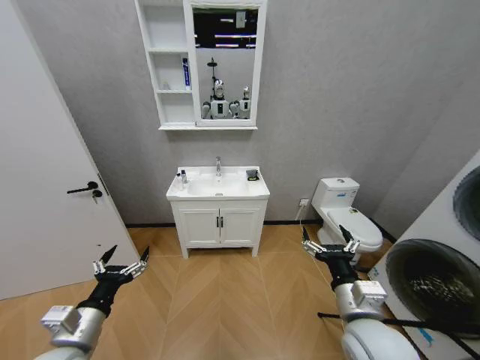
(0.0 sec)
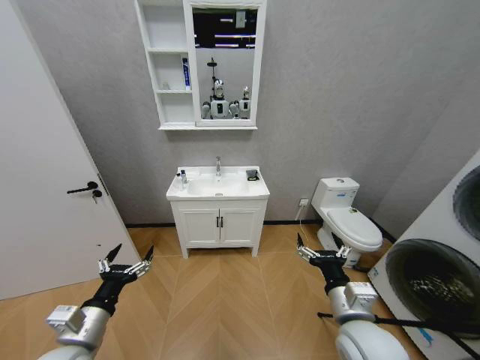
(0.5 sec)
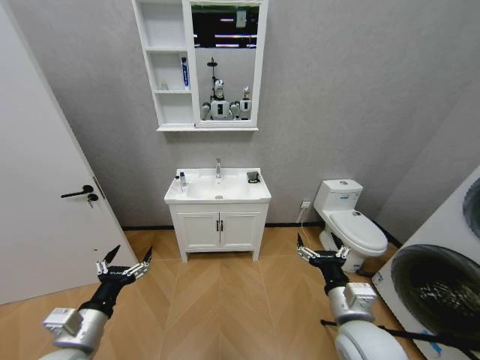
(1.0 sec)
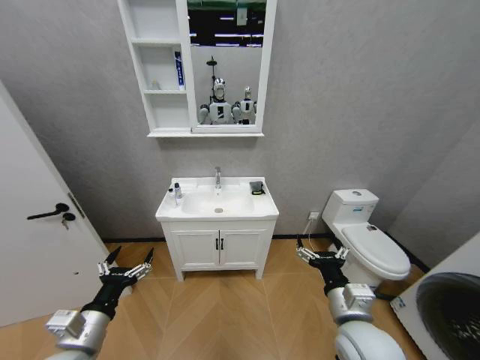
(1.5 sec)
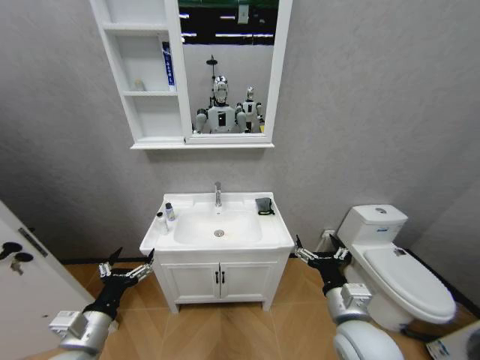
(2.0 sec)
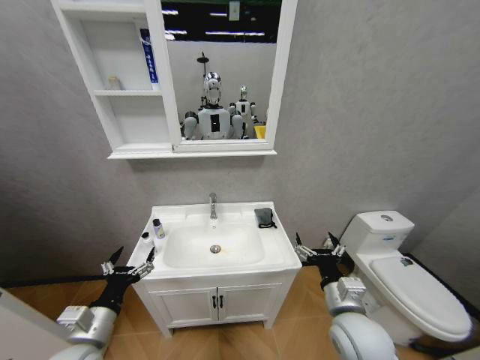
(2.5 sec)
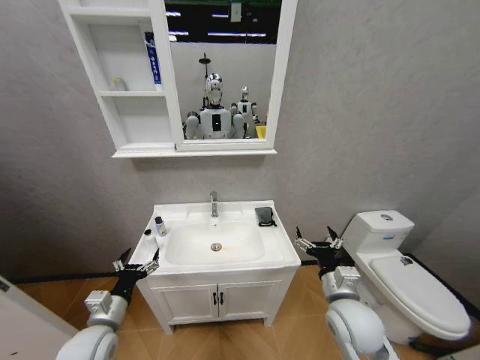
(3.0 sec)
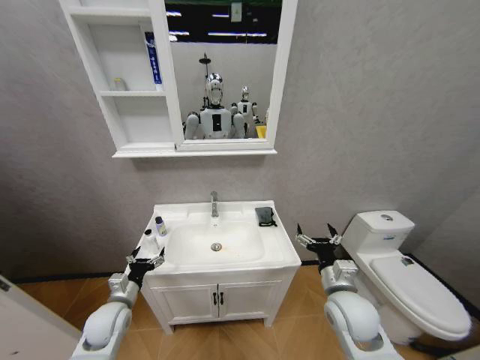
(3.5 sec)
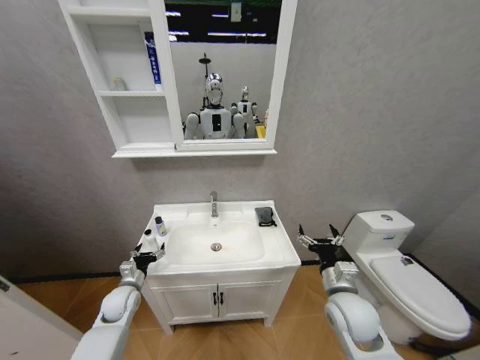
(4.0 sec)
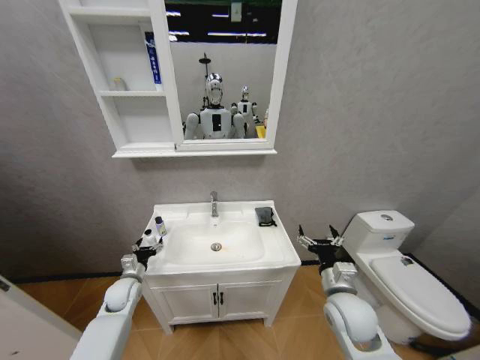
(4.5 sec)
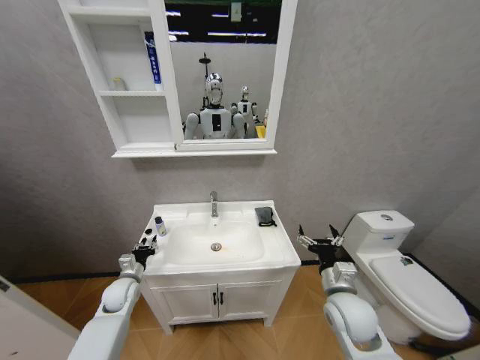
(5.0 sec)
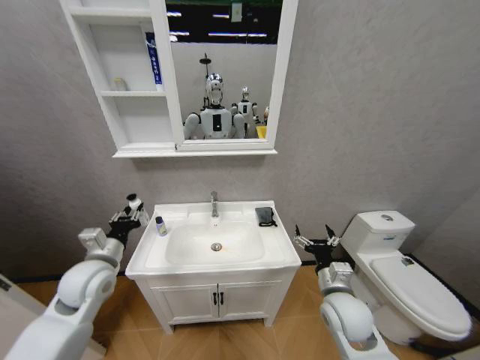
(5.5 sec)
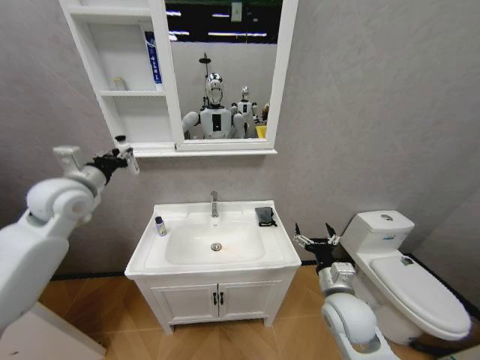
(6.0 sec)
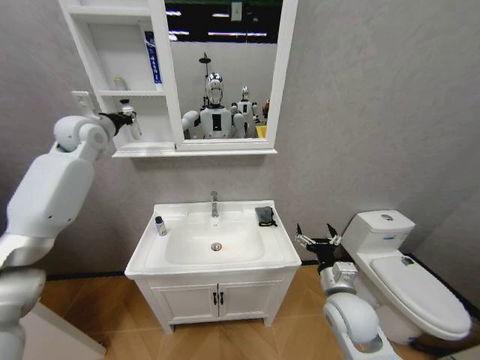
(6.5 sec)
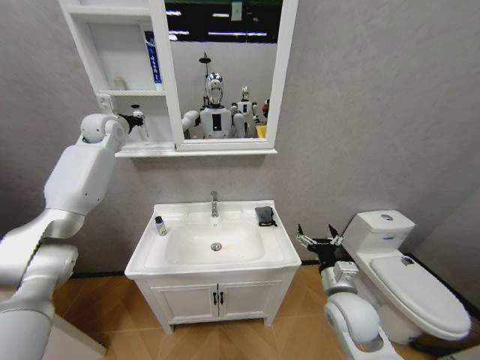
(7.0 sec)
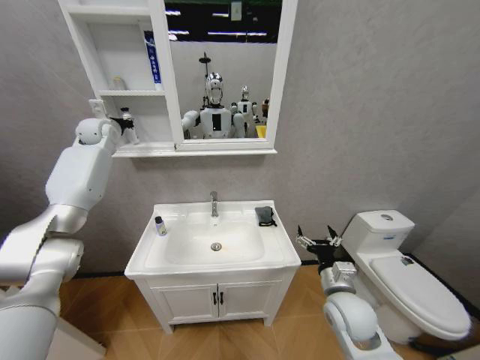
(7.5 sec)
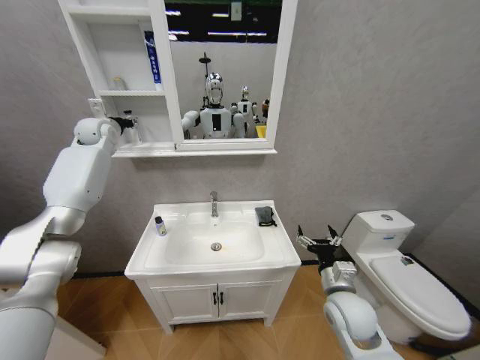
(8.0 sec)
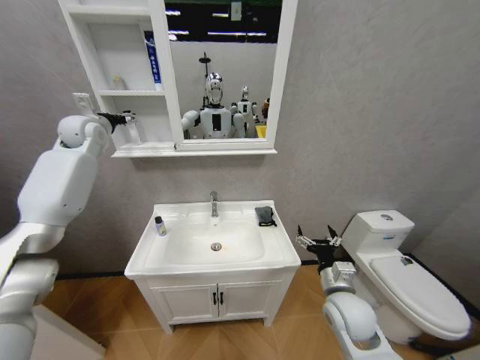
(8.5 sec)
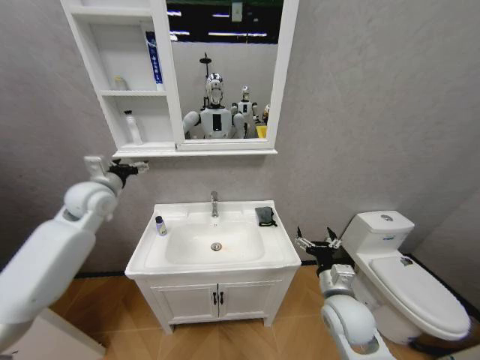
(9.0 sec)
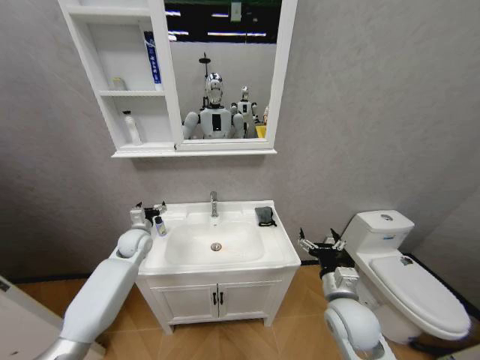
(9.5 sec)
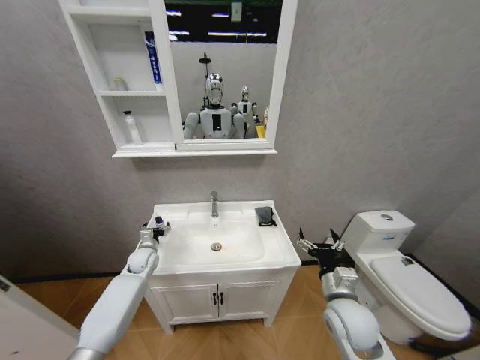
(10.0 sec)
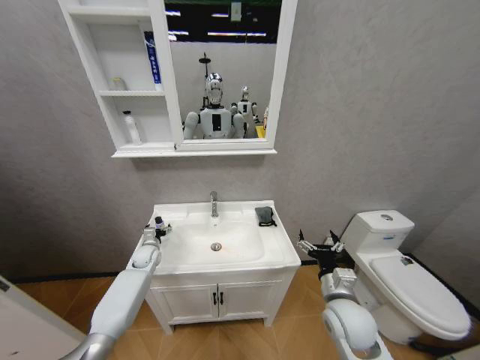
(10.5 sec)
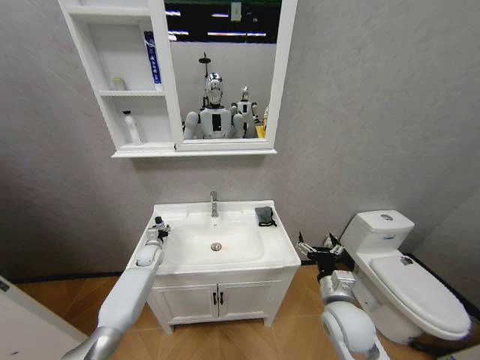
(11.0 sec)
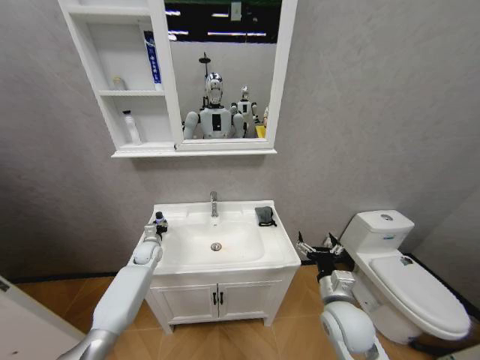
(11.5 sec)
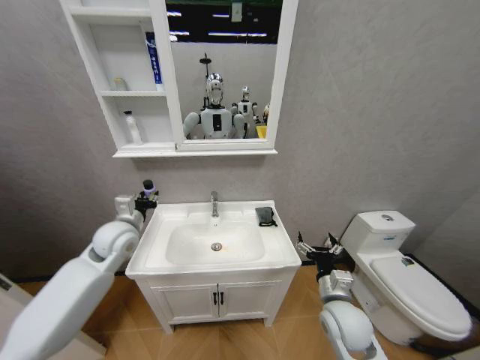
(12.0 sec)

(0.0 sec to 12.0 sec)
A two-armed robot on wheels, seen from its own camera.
Task of the whole recording: Move facial cleanser and shampoo from washbasin to cabinet, then wipe washbasin with towel.
2.0 sec - 4.0 sec: The left gripper shifts some 25 cm forward and downward. The right gripper heads forward, covering approximately 5 cm.
4.0 sec - 6.0 sec: The left gripper is displaced upward by some 35 cm, and closes.
6.0 sec - 8.0 sec: The left gripper is displaced forward by some 20 cm, and opens up.
8.0 sec - 10.0 sec: The left gripper heads downward and backward, covering about 40 cm, and opens its fingers.
10.0 sec - 12.0 sec: The left gripper shifts some 20 cm upward, and closes up.

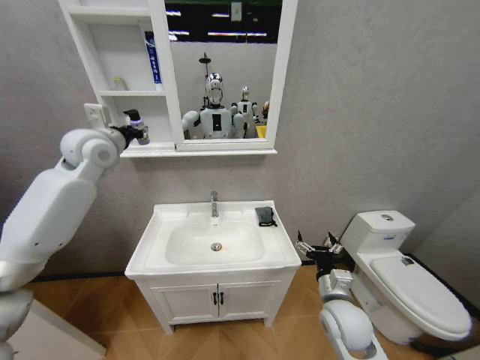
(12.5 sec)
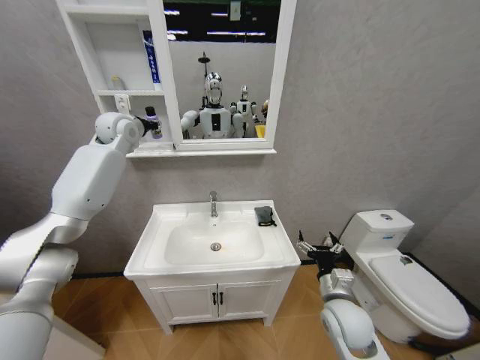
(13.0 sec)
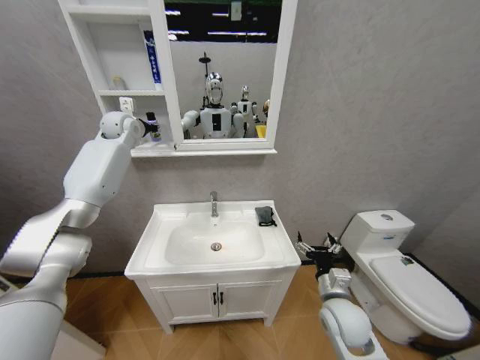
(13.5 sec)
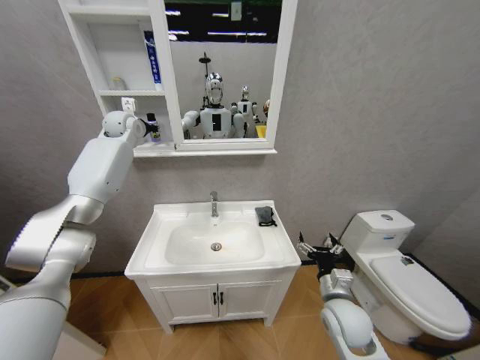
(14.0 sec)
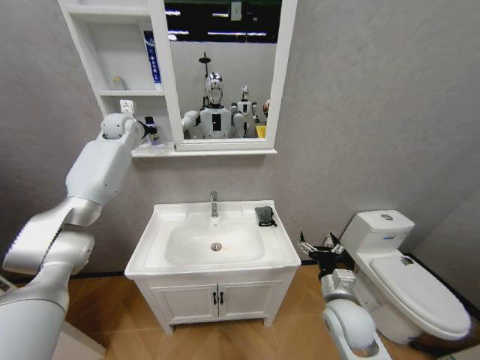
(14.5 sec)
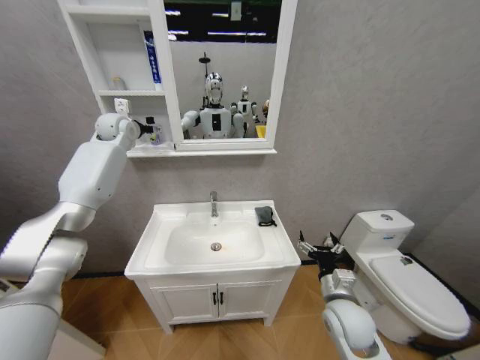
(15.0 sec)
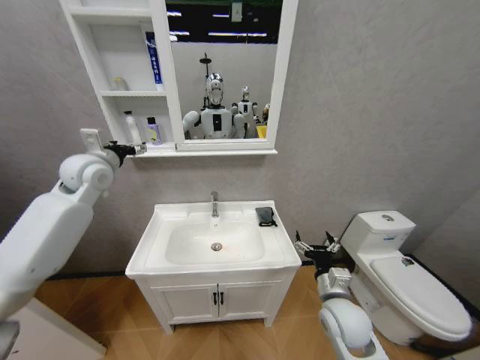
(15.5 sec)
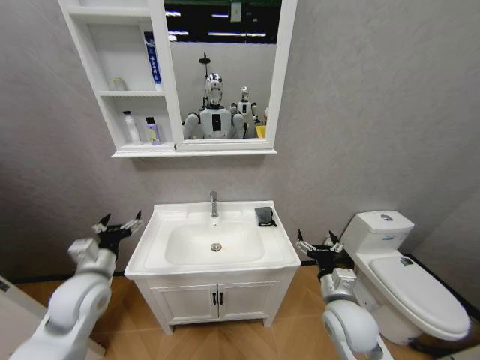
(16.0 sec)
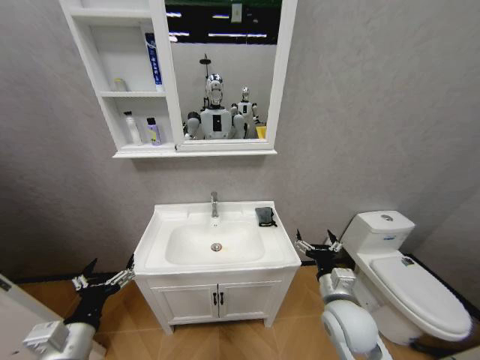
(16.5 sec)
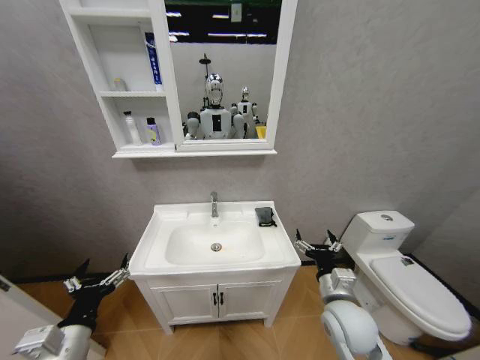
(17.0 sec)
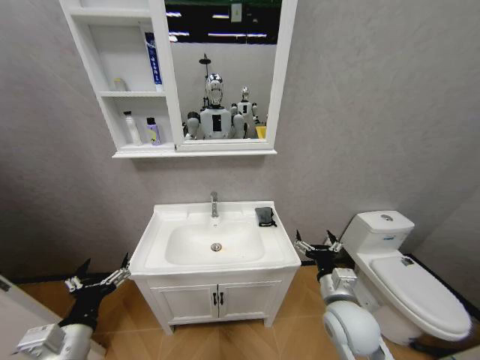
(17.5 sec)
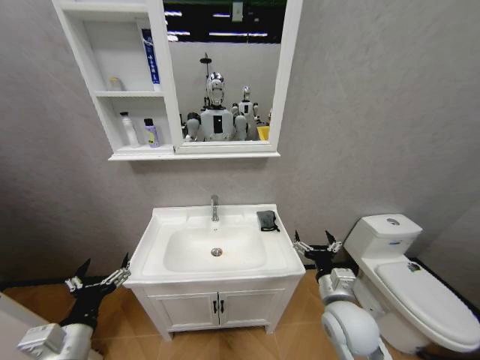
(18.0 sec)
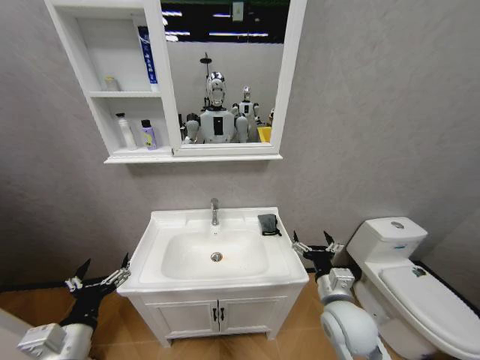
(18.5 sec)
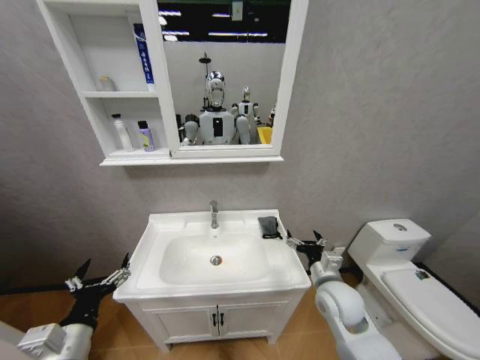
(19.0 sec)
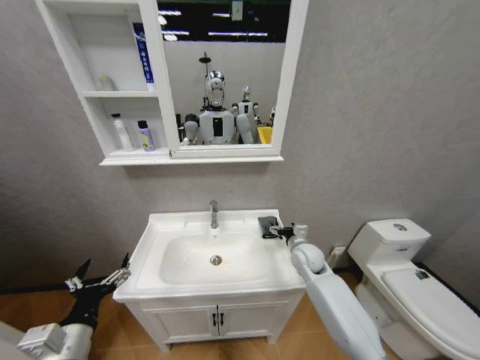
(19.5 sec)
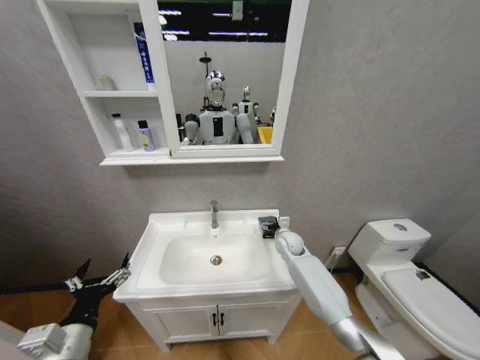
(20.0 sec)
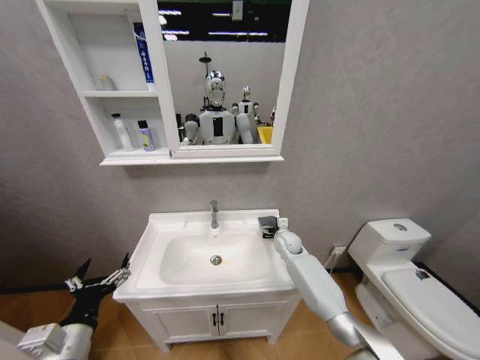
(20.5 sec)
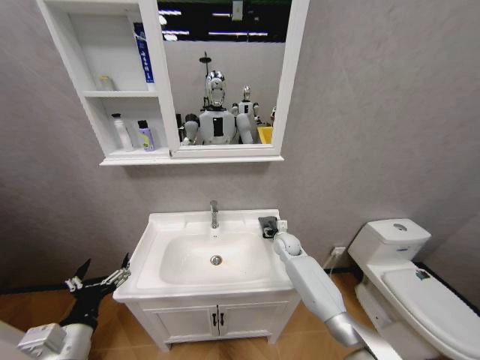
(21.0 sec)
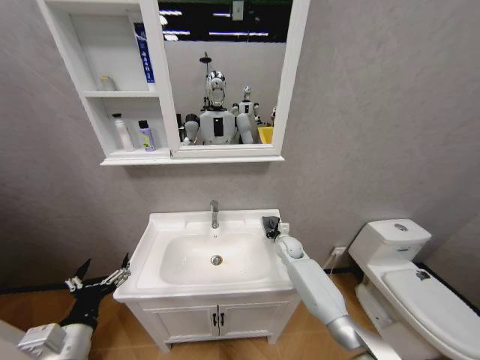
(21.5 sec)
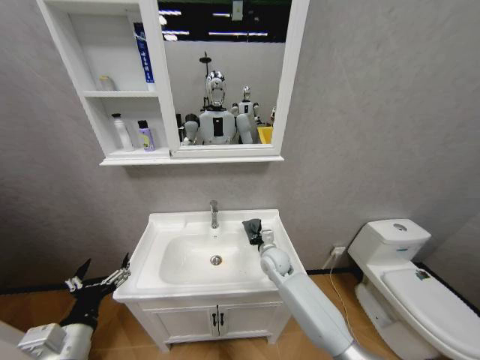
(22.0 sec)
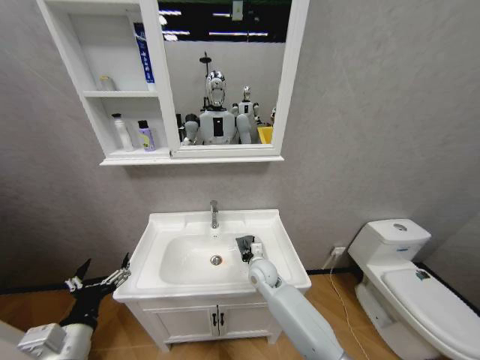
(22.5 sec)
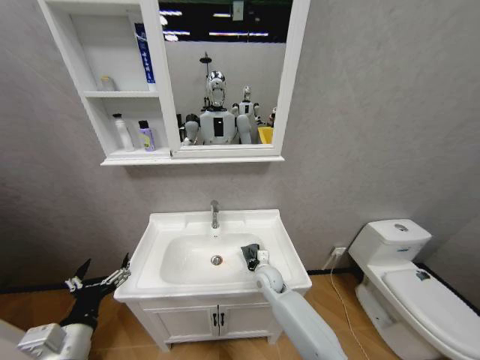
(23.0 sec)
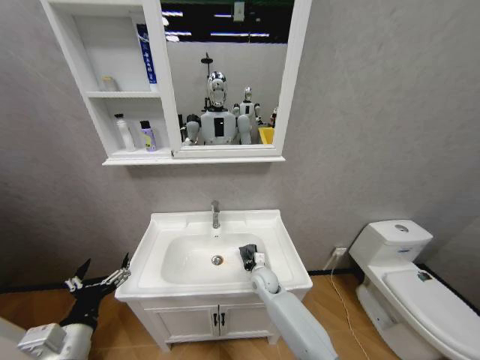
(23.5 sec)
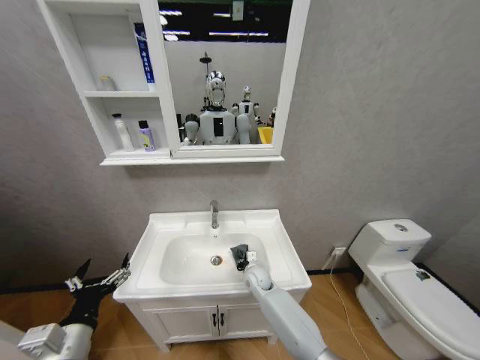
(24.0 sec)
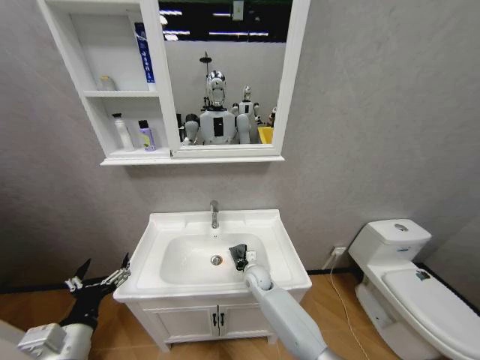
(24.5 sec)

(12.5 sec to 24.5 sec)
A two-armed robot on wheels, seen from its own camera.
Task of the whole recording: Move facial cleanser and shampoo from washbasin to cabinet, then wipe washbasin with towel.
12.5 sec - 14.5 sec: The left gripper heads forward, covering some 15 cm.
14.5 sec - 16.5 sec: The left gripper heads backward and downward, covering approximately 60 cm, and opens.
18.5 sec - 20.5 sec: The right gripper heads forward, covering about 30 cm.
20.5 sec - 22.5 sec: The right gripper is displaced to the left and backward by roughly 15 cm, and closes up.
22.5 sec - 24.5 sec: The right gripper shifts about 5 cm downward.

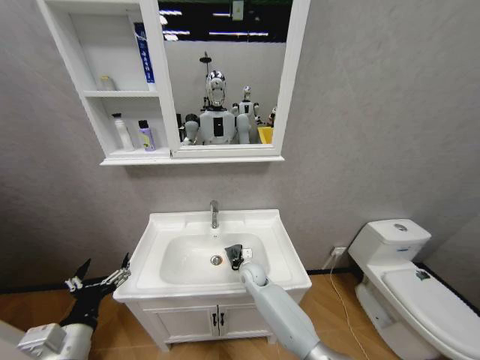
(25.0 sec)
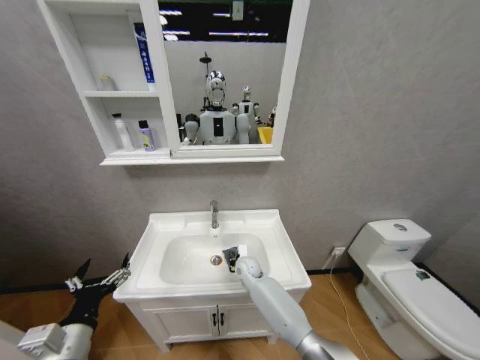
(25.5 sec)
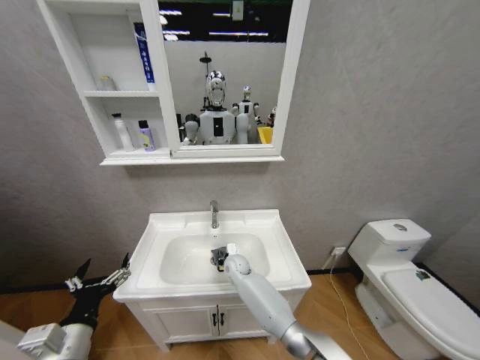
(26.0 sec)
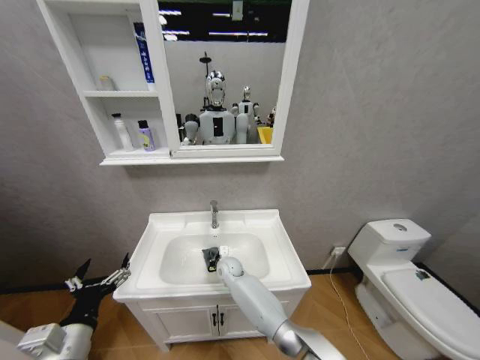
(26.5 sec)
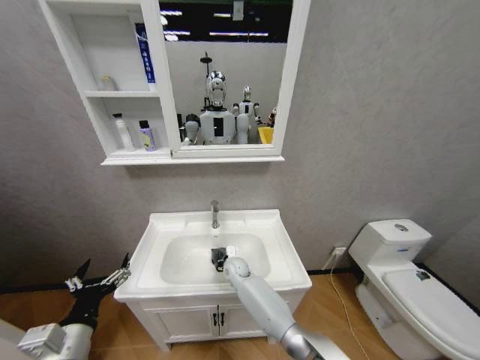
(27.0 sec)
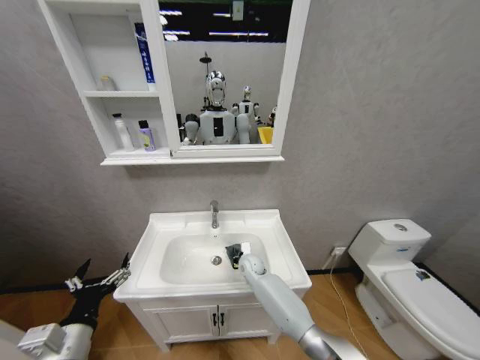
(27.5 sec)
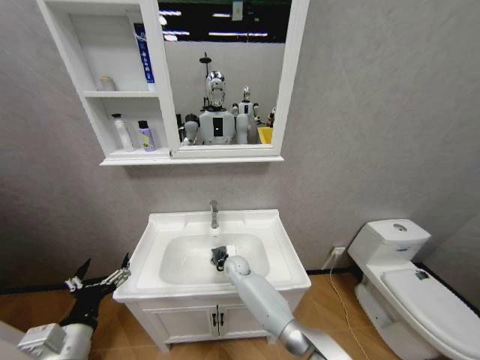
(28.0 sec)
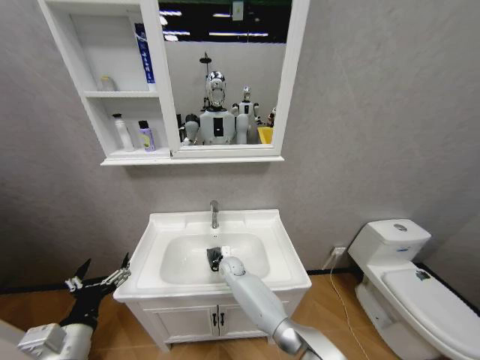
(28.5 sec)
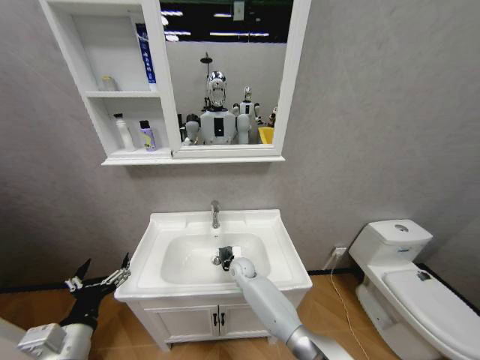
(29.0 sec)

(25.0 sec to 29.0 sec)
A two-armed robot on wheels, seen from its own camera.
Task of the whole recording: Move facial cleanser and shampoo from washbasin to cabinet, then wipe washbasin with towel.
25.0 sec - 27.0 sec: The right gripper heads to the left, covering roughly 5 cm.
27.0 sec - 29.0 sec: The right gripper reaches about 5 cm to the right, then returns.
